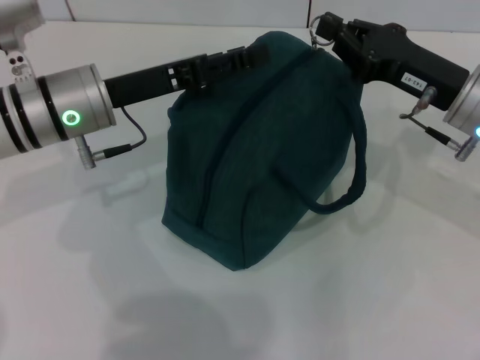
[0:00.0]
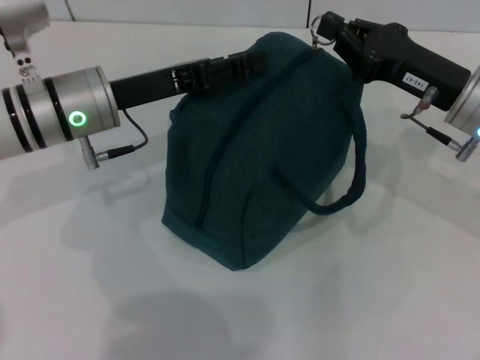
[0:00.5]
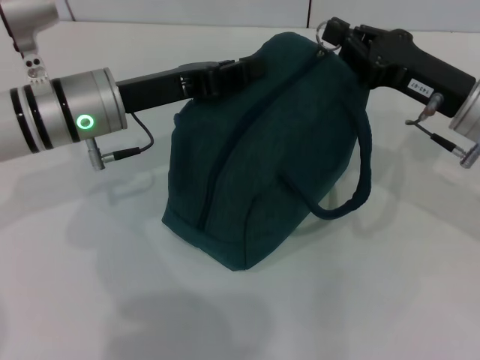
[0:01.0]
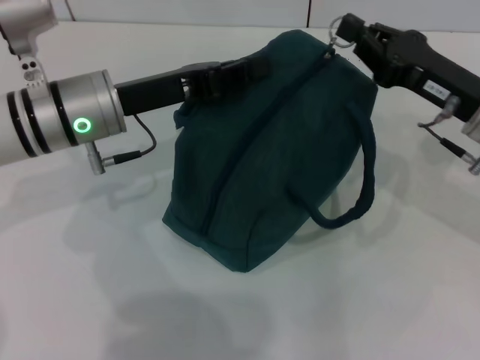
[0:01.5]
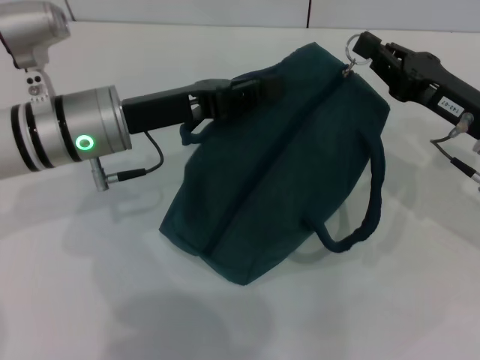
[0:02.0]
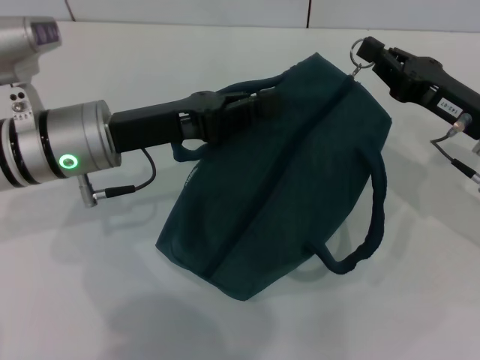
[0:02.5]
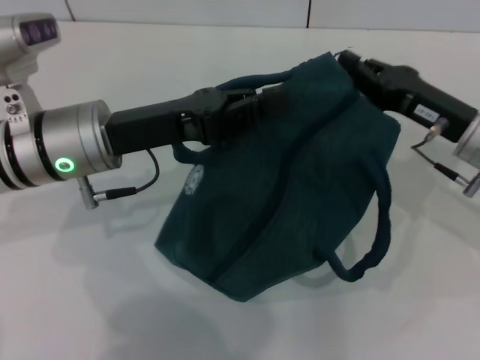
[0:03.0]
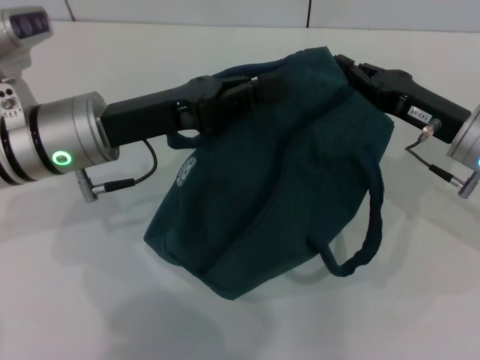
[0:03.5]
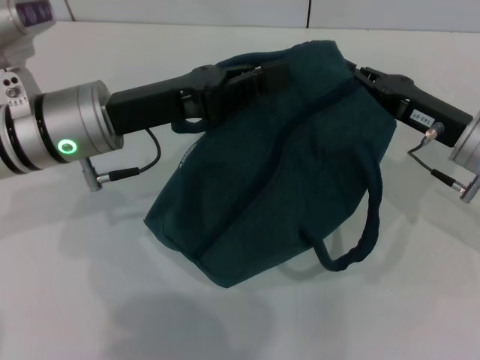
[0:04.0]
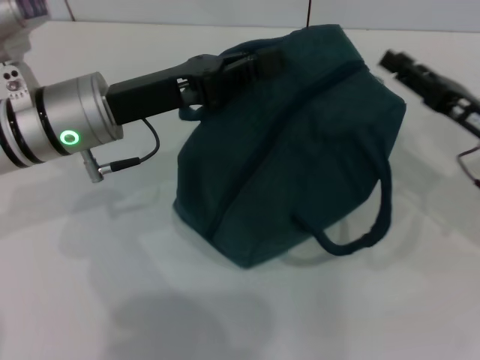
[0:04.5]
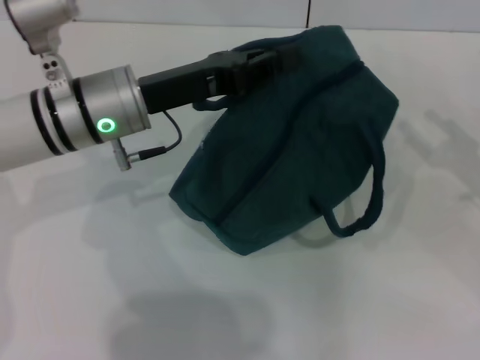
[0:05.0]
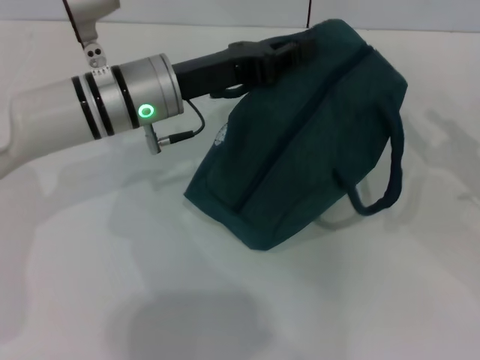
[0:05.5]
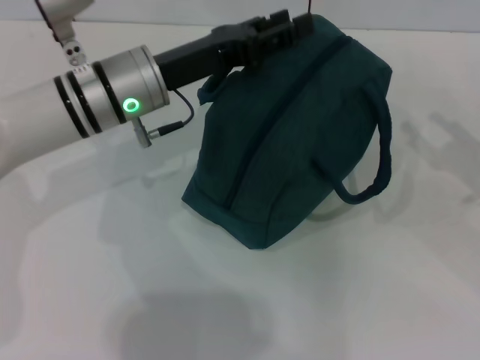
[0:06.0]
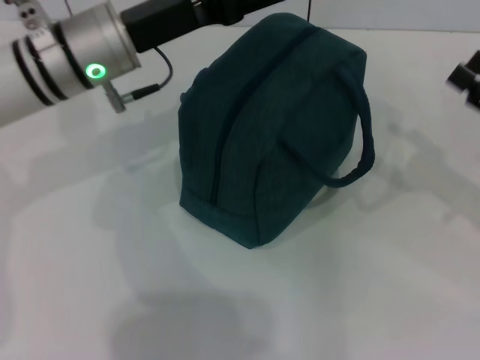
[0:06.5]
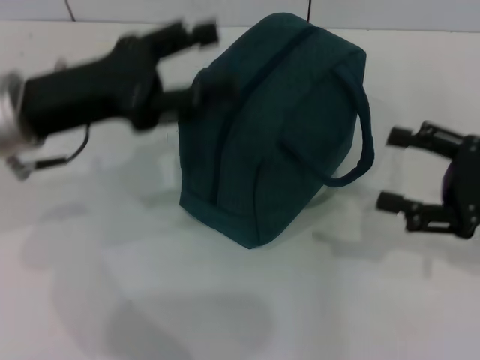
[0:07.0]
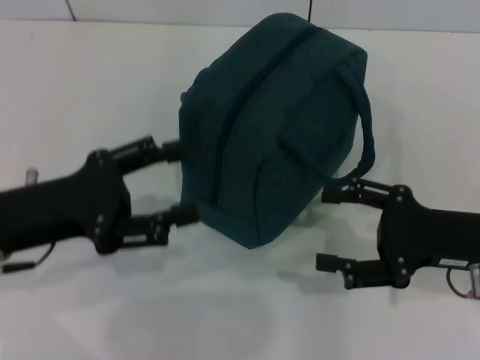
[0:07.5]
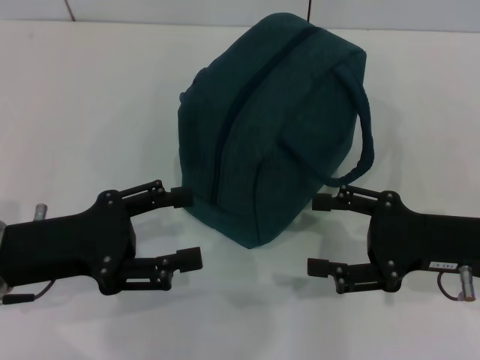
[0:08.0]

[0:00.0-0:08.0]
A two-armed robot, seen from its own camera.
Step, 0:00.0 to 0:04.0: Zip up the lunch bag with your right hand.
Step, 0:04.5 to 0:06.0: Hold the lunch bag with your left hand.
0:00.0 to 0:02.0: The left gripper closes its fingers.
0:02.0 to 0:04.0: The grippers move only a little.
0:04.0 to 0:06.0: The left gripper shifts by roughly 5 cm, and opens up. The right gripper travels to the right by approximately 10 cm, and opens.
0:06.0 to 0:08.0: The left gripper goes some 20 cm backward and to the left, and opens up. The right gripper goes some 10 cm to the left.
